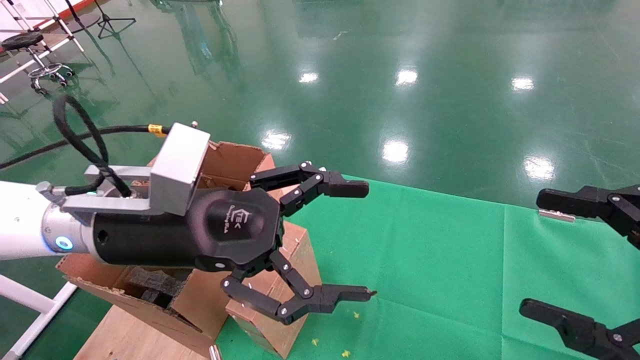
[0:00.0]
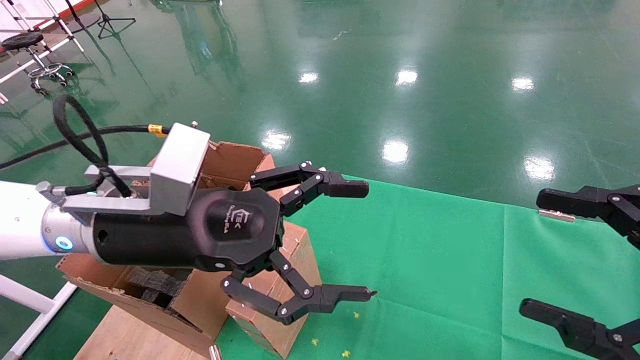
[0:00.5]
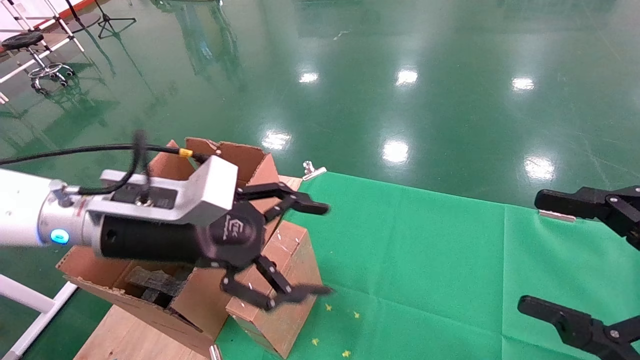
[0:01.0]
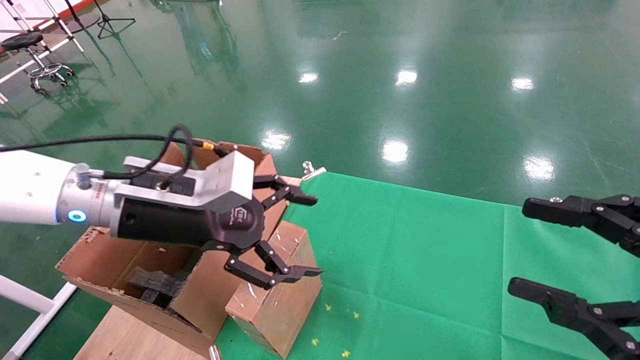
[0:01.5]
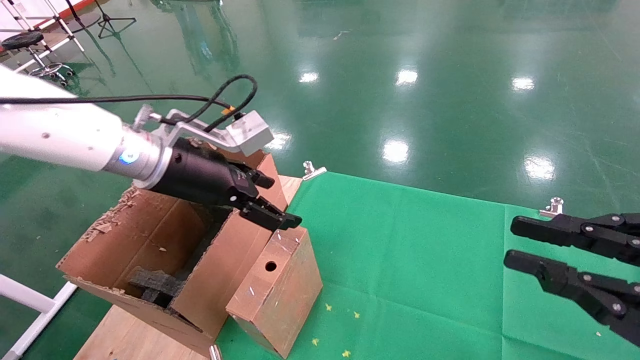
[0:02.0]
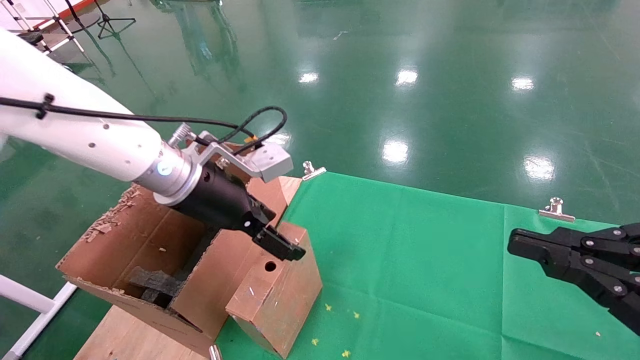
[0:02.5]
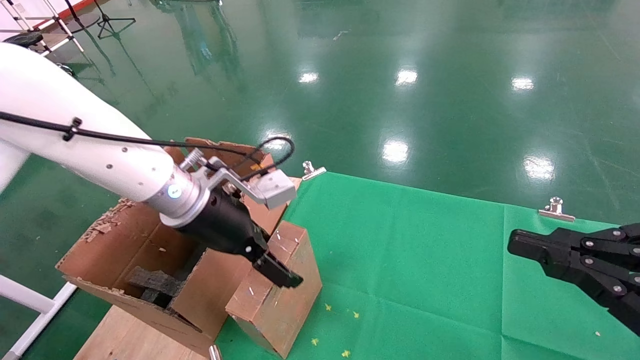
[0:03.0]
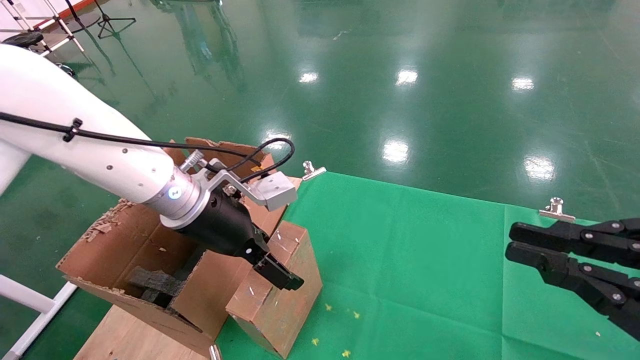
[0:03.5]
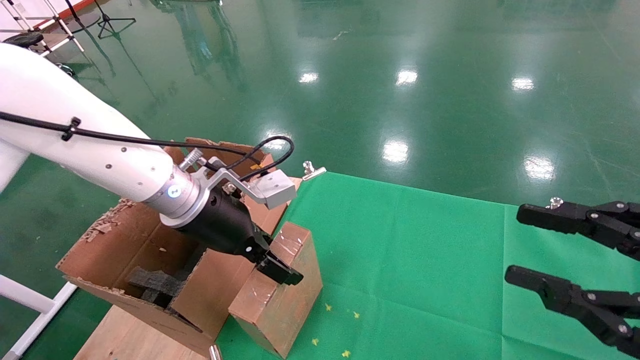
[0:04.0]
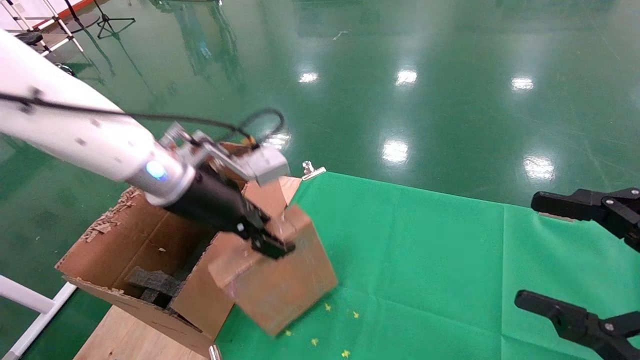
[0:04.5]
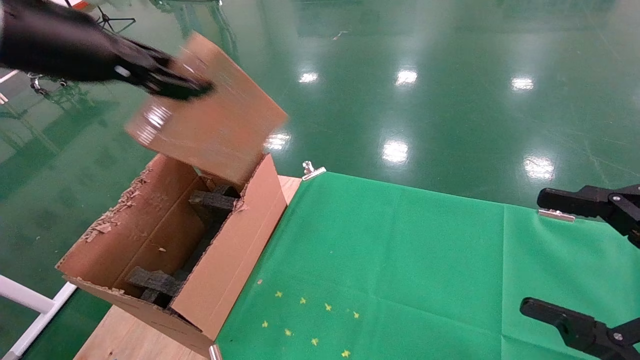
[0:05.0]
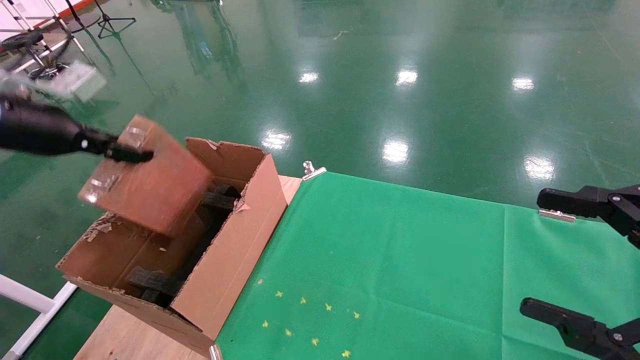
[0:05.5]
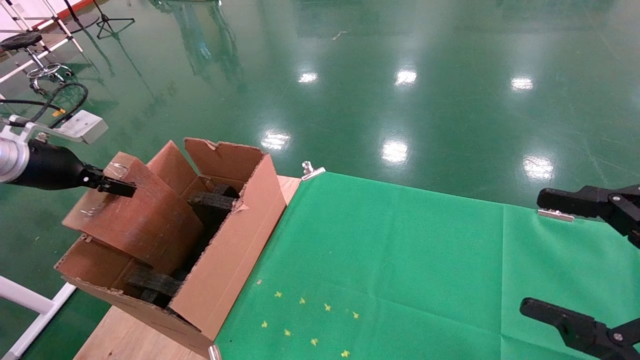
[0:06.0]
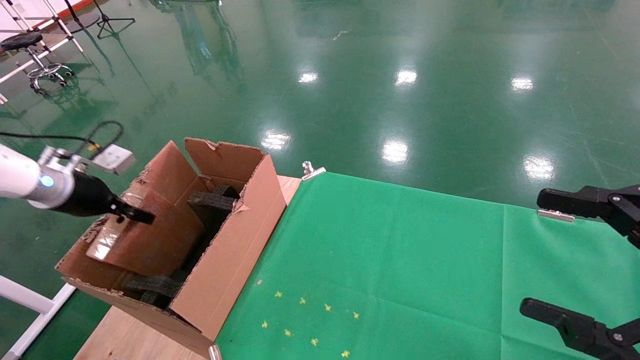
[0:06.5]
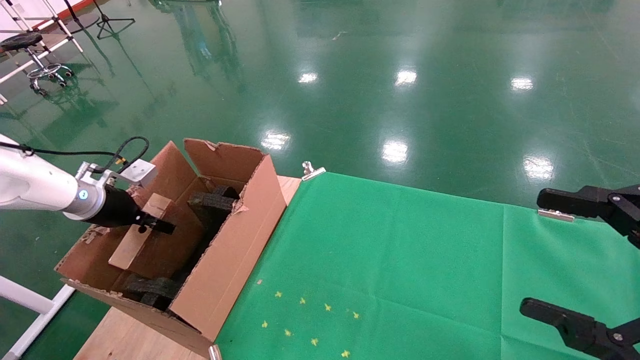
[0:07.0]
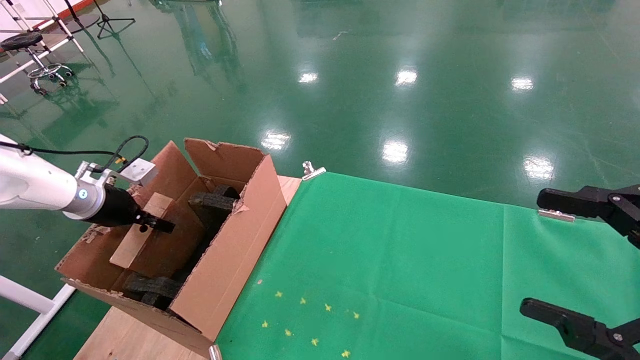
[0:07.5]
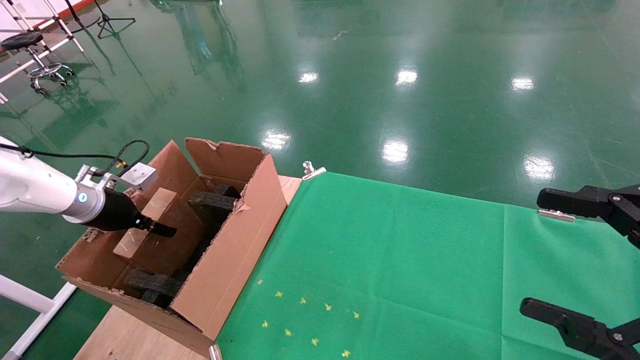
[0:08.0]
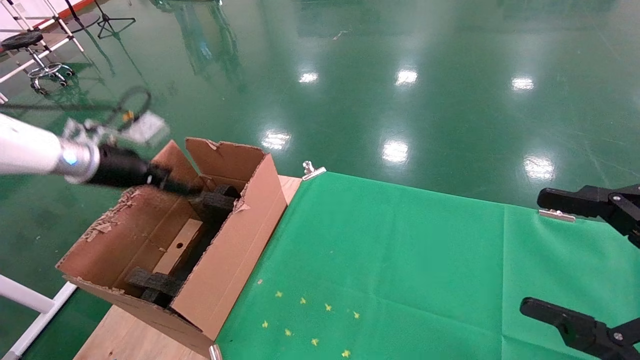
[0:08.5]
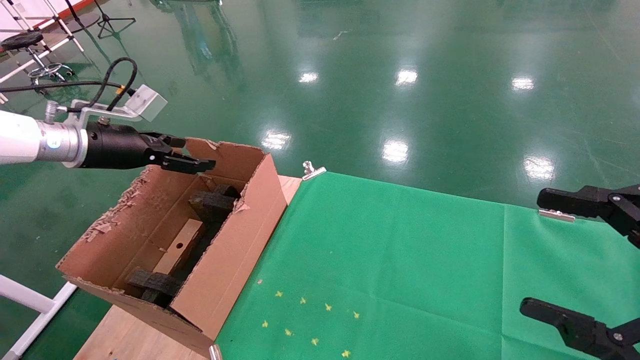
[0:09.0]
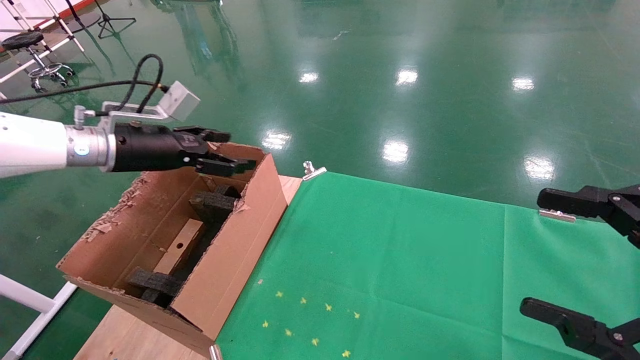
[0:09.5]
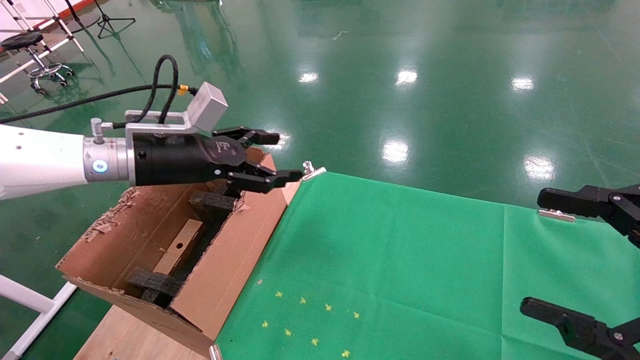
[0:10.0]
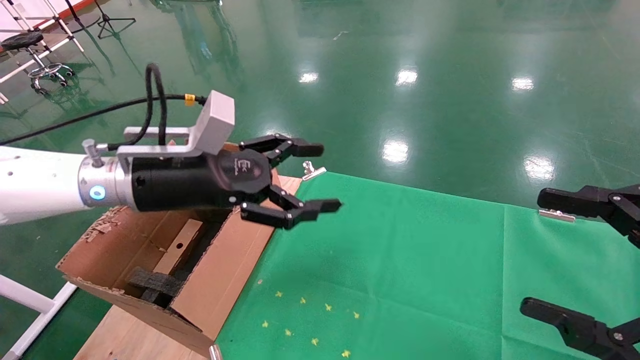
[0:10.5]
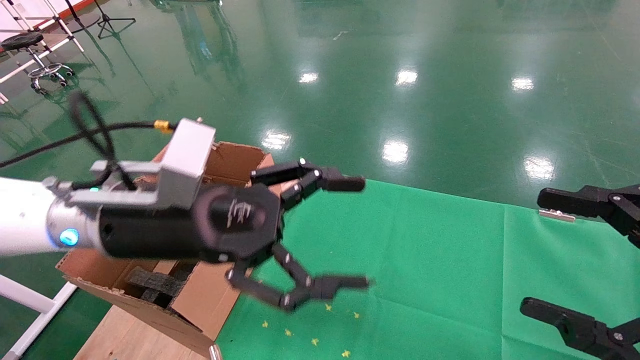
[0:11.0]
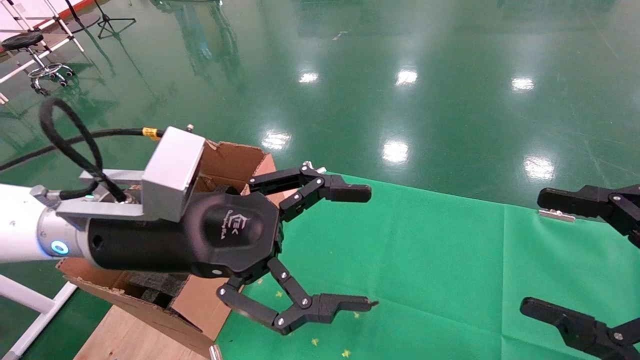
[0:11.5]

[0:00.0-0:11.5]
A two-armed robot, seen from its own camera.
Task of the whole recording: using a robotic arm to pick up a cardboard box and palace it the carton.
Step, 0:01.0 to 0:04.5: Pick up the mouse and the power cord paper box.
Step, 0:05.0 to 0:08.0: Place the mouse and the power cord paper box into the container.
0:00.0 to 0:02.0: The left gripper travels forward by about 10 cm, while the right gripper closes.
0:02.0 to 0:04.0: The left gripper moves about 5 cm.
0:04.0 to 0:06.0: The right gripper opens its fingers; the left gripper is displaced to the left by roughly 30 cm, and closes its fingers.
0:06.0 to 0:07.5: The left gripper heads downward and forward, covering approximately 10 cm.
0:07.5 to 0:09.5: The left gripper moves to the right and upward, approximately 15 cm, and opens up.
0:09.5 to 0:11.5: The left gripper is displaced to the right and backward by about 20 cm.

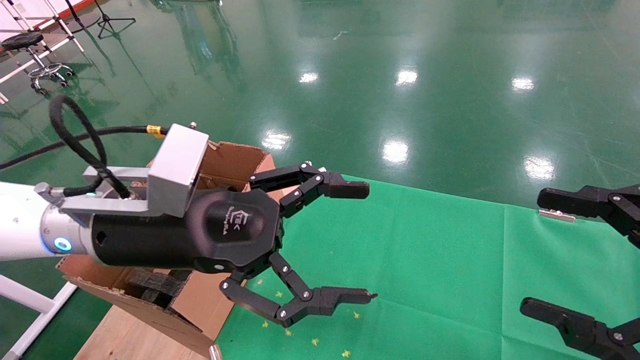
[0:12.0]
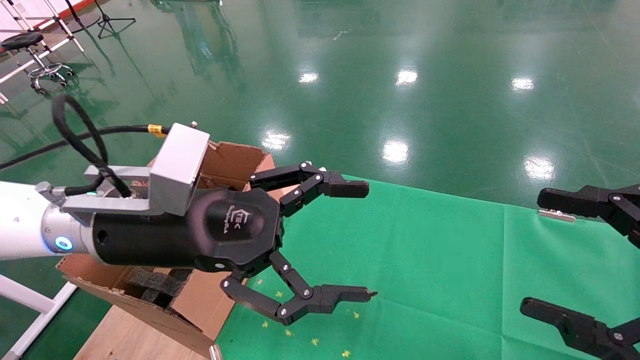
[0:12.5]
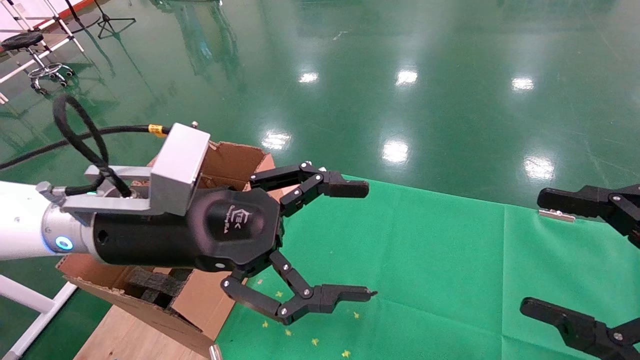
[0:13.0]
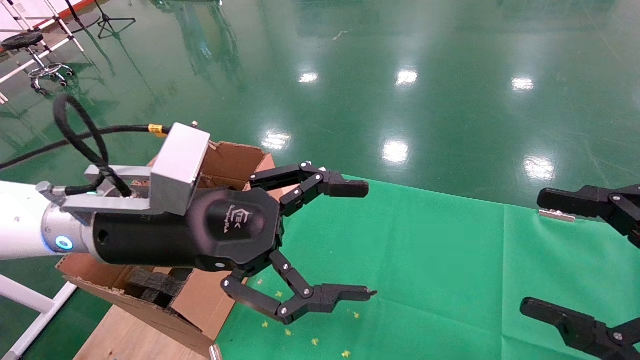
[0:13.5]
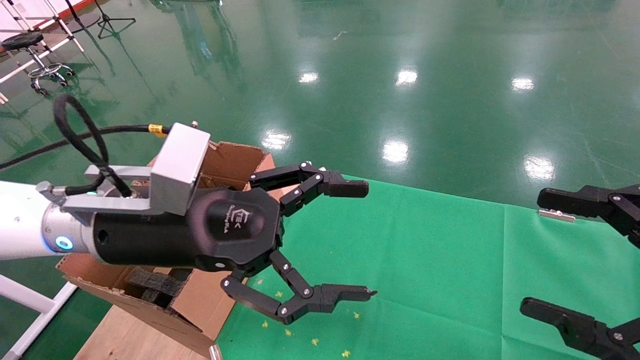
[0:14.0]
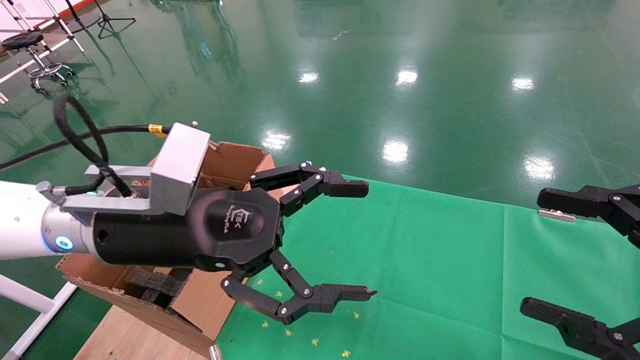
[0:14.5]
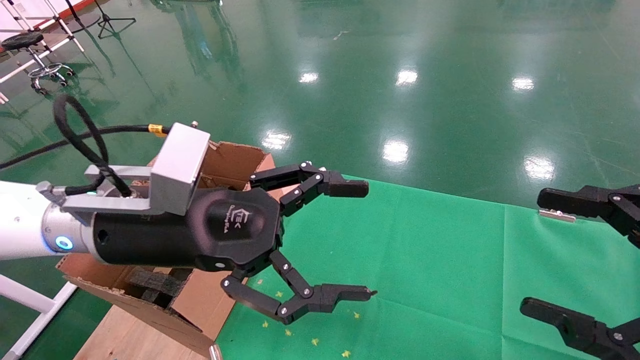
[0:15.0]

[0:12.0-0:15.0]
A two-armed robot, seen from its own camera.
Task of the whole recording: using a robotic arm to pick up a cardboard box and palace it the carton.
0:12.0 to 0:15.0: Neither gripper changes place.
